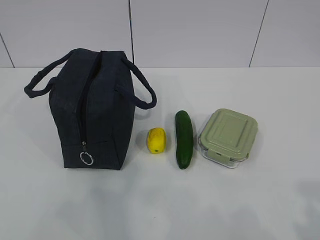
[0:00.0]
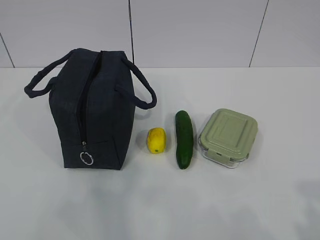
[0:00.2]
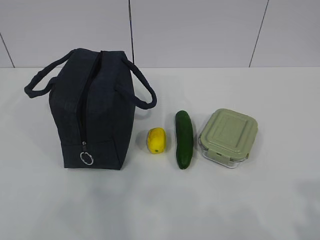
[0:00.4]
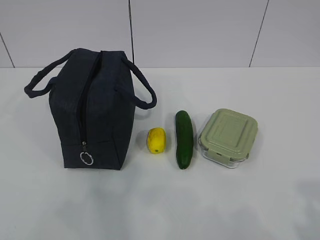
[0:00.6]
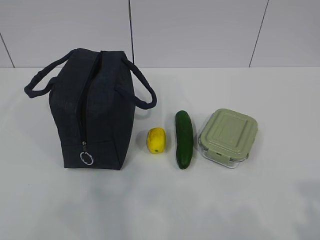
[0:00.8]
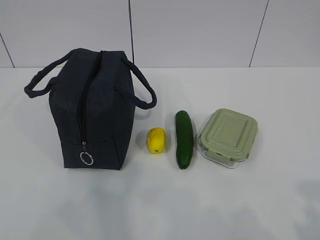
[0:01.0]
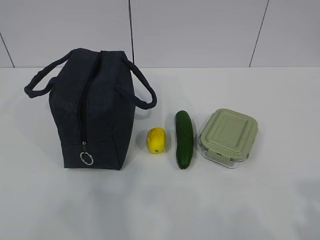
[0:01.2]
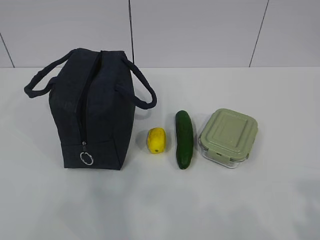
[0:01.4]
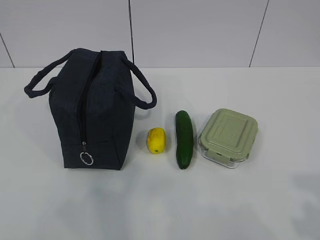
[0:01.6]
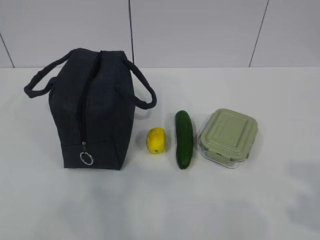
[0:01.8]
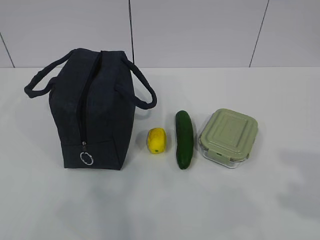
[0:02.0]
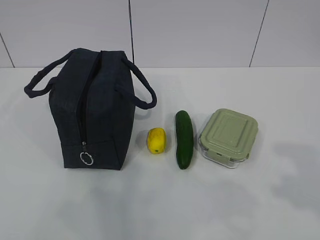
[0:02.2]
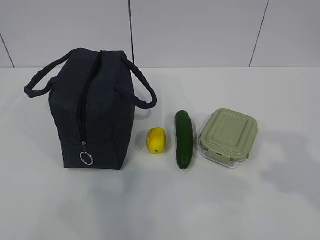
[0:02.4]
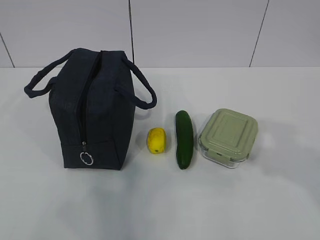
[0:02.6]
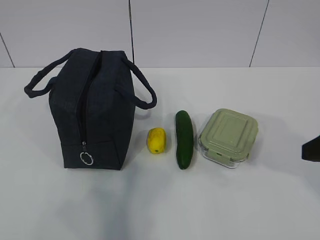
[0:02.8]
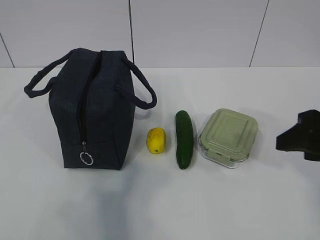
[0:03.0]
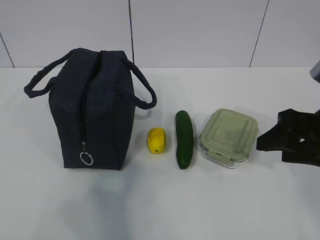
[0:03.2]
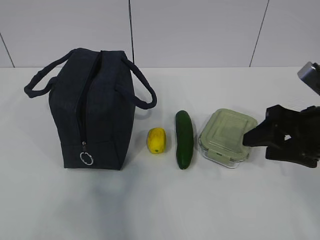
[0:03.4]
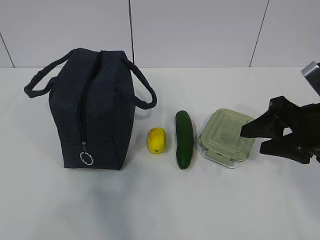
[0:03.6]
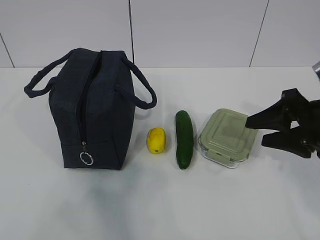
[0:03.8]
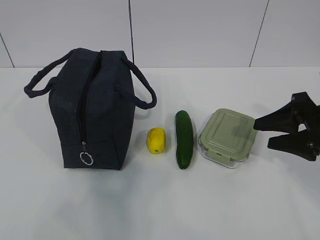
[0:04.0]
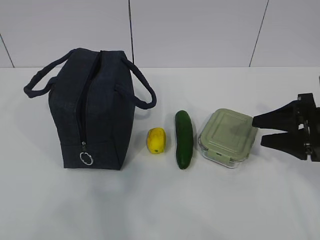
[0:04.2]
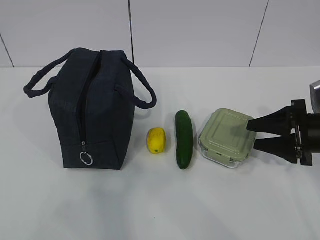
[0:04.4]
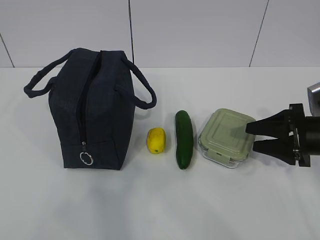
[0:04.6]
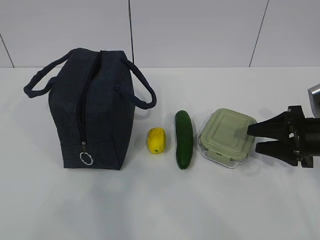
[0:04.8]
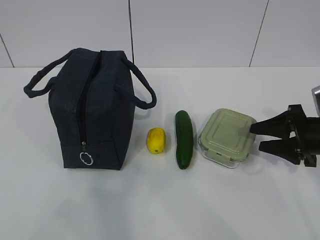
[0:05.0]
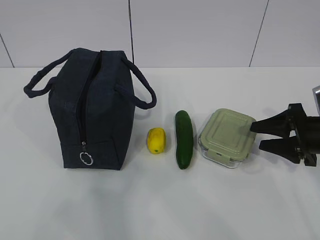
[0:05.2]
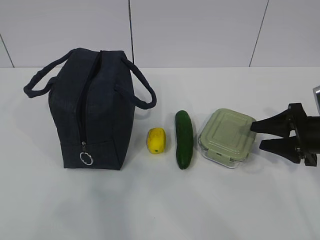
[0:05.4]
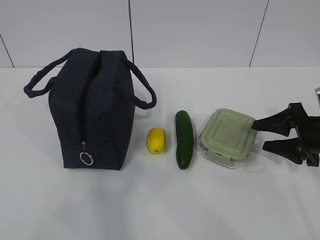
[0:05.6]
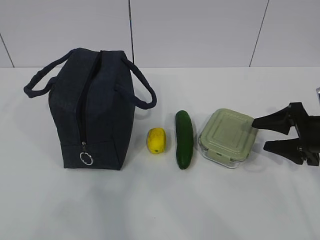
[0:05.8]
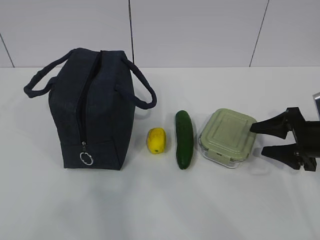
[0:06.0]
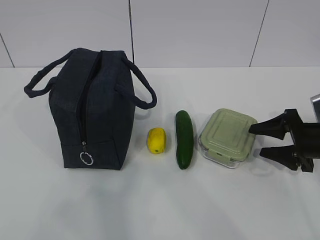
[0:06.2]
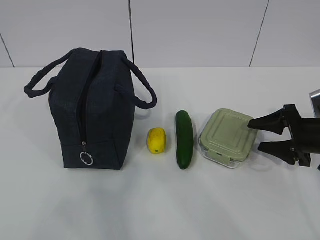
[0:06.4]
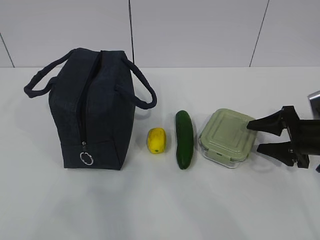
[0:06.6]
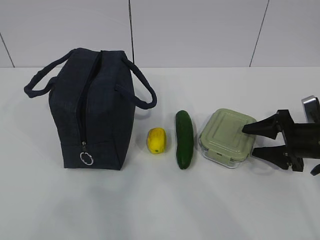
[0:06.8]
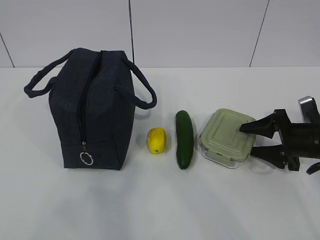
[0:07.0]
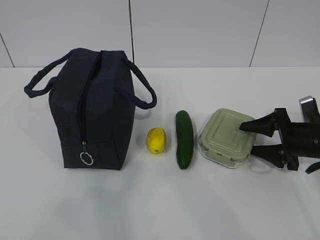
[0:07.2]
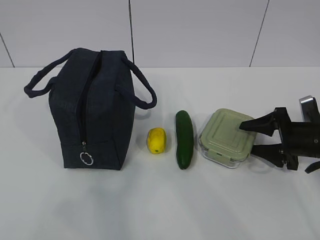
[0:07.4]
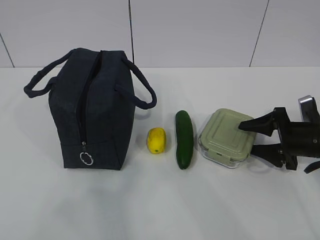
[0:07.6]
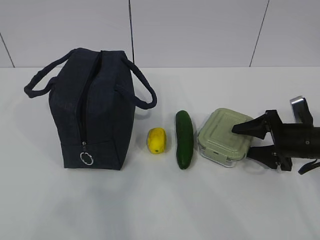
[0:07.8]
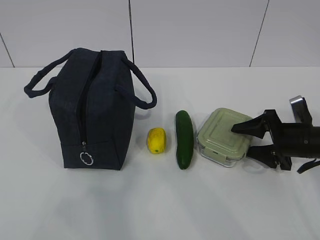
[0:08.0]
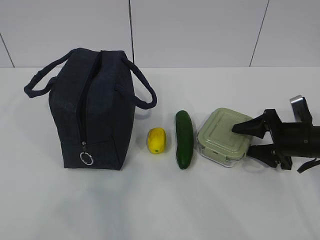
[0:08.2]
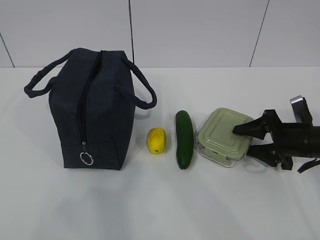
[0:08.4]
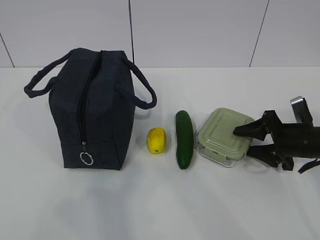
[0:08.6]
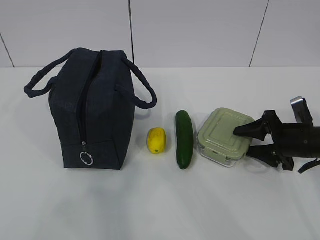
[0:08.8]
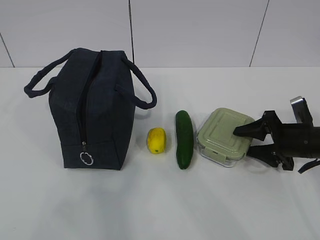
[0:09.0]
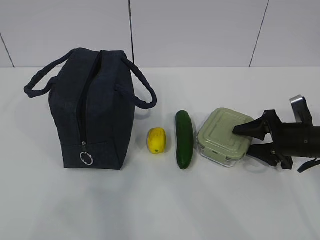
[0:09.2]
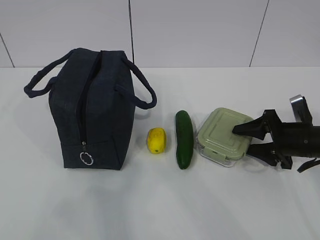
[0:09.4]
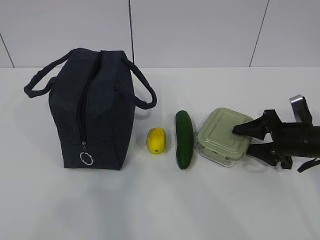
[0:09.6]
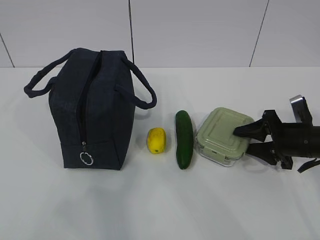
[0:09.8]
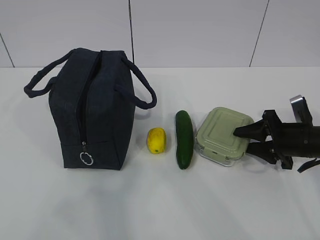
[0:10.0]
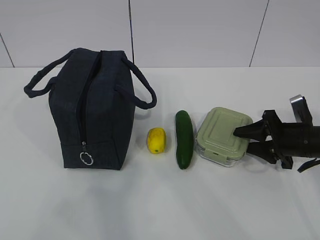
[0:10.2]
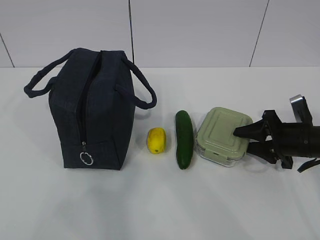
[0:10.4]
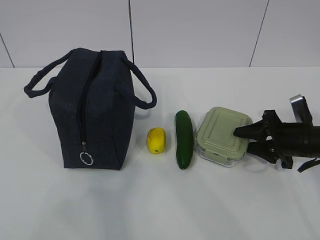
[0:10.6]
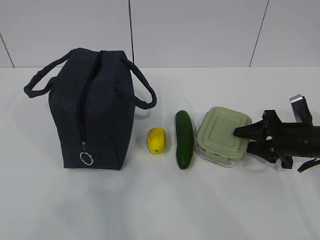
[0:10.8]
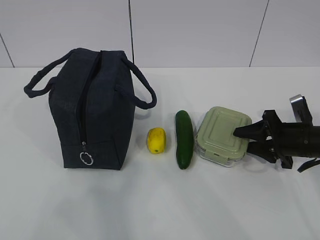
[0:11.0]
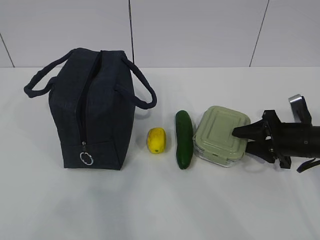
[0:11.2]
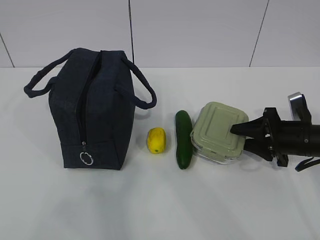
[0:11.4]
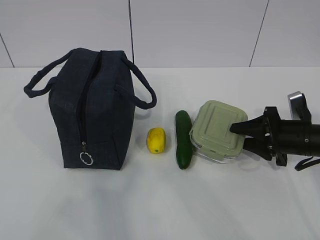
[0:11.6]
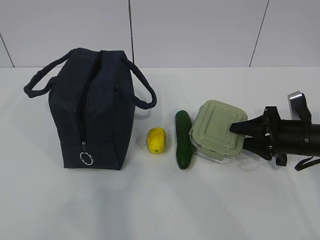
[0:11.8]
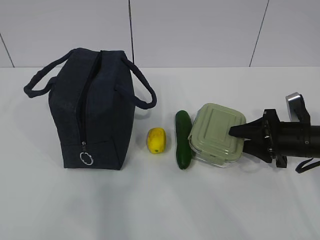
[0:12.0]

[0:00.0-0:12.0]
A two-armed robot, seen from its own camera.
Step, 0:00.0 to 0:09.0: Grab the lunch box with your right hand.
0:01.6 to 0:03.0: The right gripper goes some 20 cm forward.
0:03.0 to 0:04.4: The right gripper moves downward and forward, roughly 15 cm.
0:04.4 to 0:06.0: There are only small adjustments of the grippers.
0:06.0 to 0:07.6: The grippers move only a little.
0:07.6 to 0:10.4: Both grippers stay about where they are.
0:10.4 to 0:12.0: The grippers stay close to where they were, moving slightly.

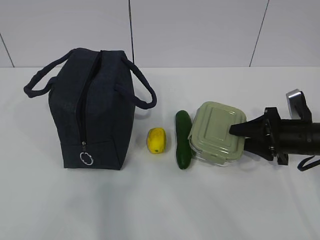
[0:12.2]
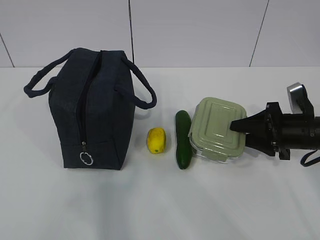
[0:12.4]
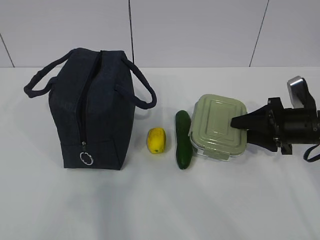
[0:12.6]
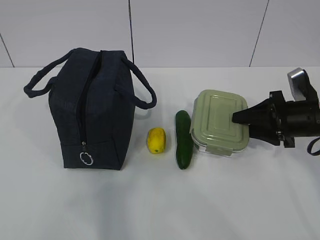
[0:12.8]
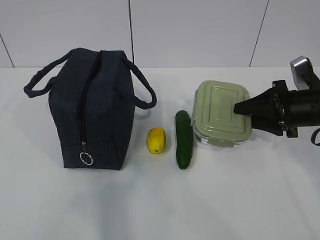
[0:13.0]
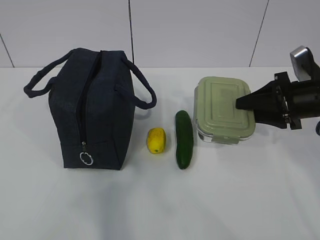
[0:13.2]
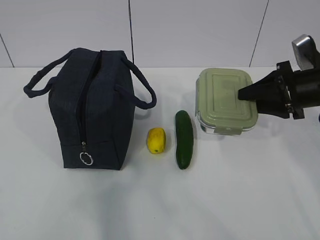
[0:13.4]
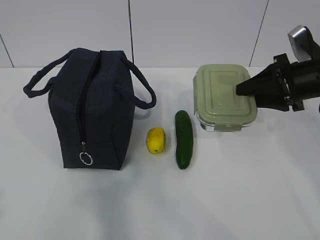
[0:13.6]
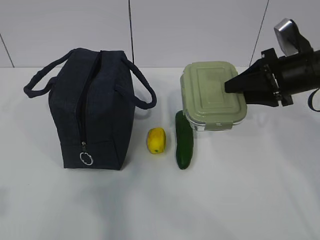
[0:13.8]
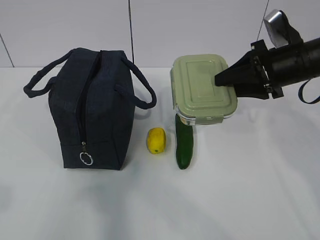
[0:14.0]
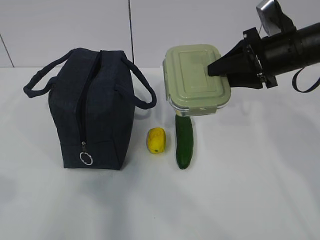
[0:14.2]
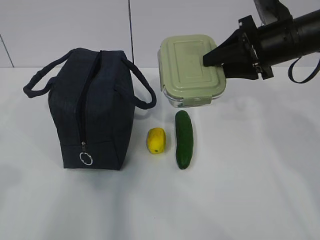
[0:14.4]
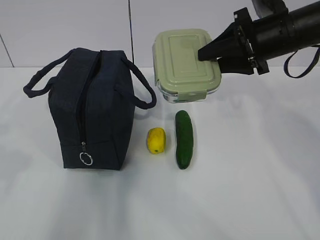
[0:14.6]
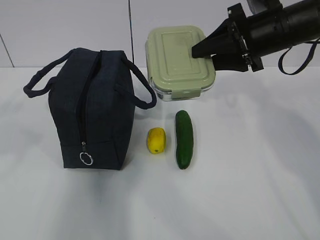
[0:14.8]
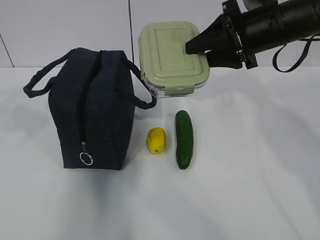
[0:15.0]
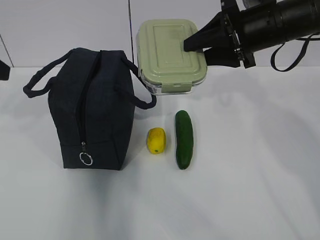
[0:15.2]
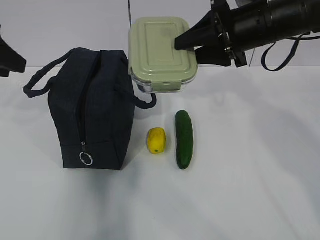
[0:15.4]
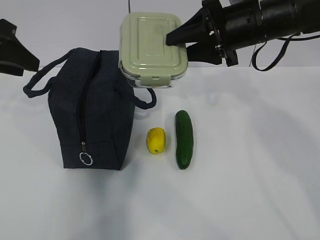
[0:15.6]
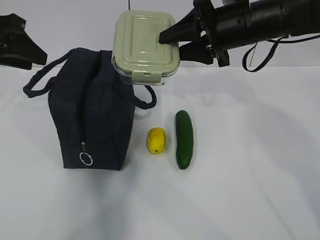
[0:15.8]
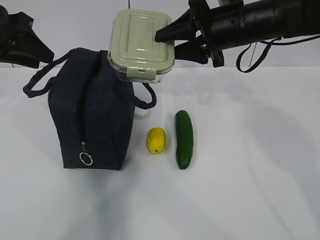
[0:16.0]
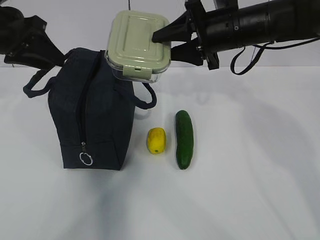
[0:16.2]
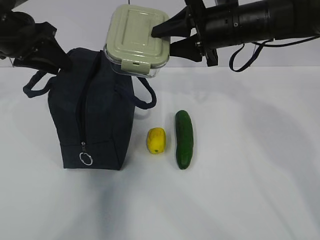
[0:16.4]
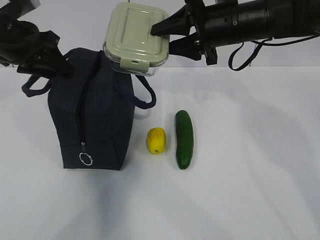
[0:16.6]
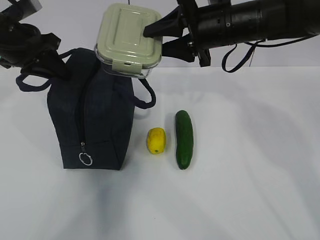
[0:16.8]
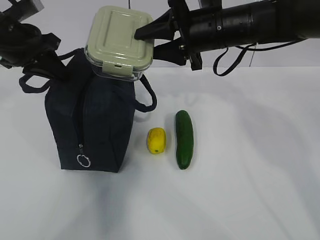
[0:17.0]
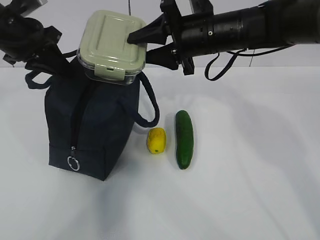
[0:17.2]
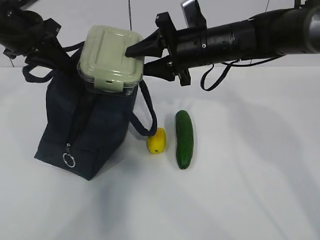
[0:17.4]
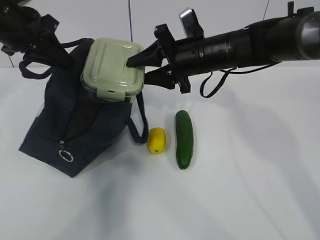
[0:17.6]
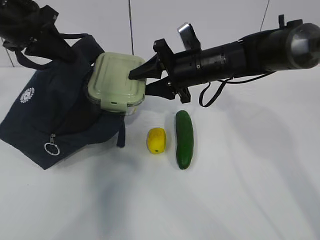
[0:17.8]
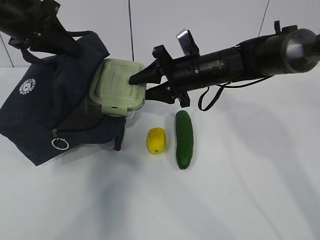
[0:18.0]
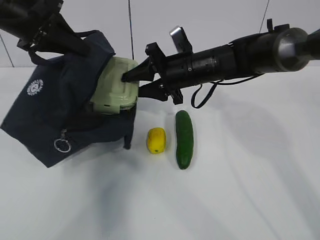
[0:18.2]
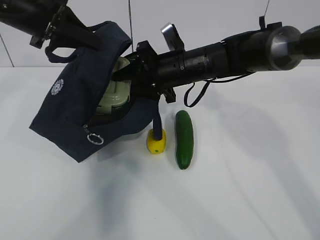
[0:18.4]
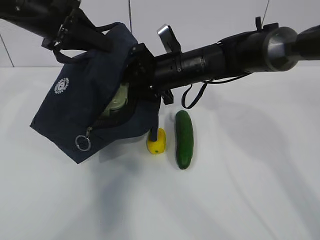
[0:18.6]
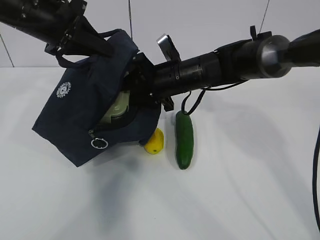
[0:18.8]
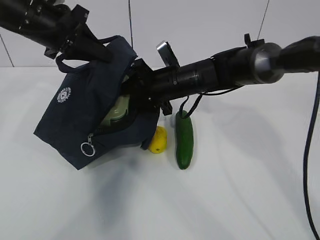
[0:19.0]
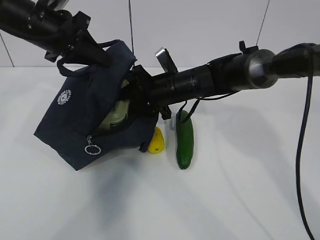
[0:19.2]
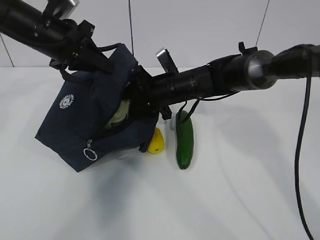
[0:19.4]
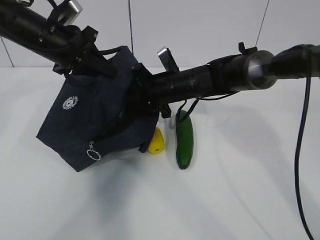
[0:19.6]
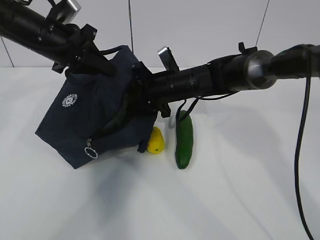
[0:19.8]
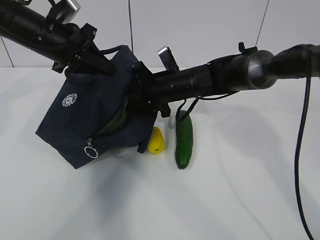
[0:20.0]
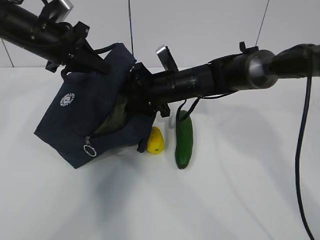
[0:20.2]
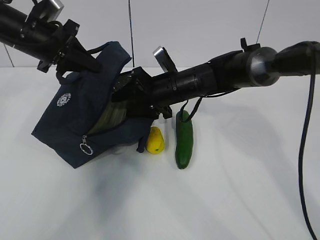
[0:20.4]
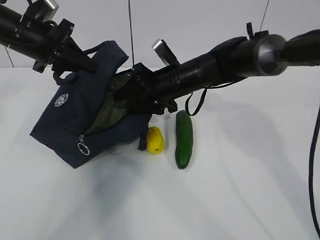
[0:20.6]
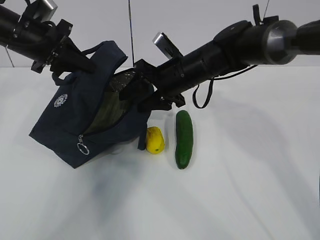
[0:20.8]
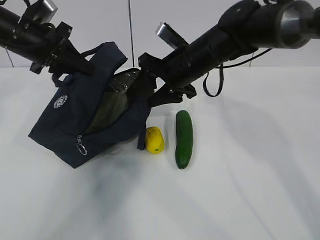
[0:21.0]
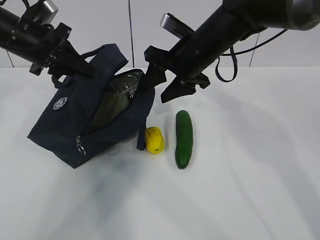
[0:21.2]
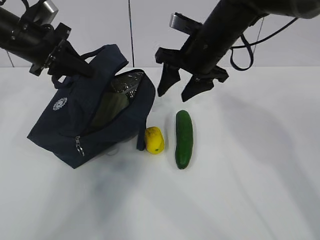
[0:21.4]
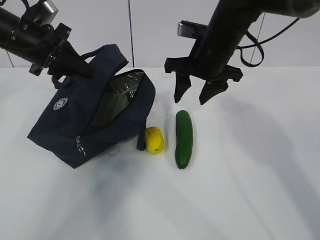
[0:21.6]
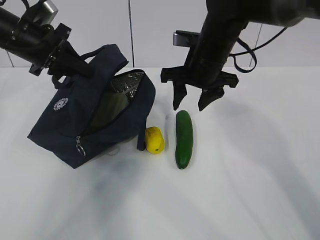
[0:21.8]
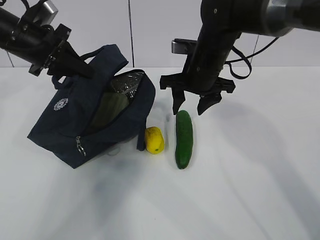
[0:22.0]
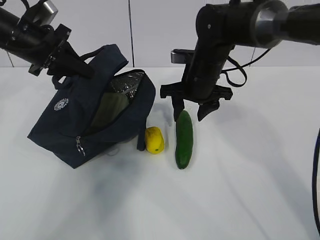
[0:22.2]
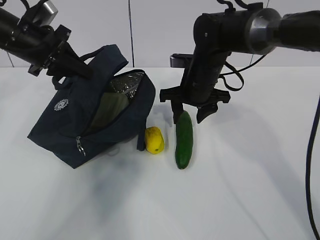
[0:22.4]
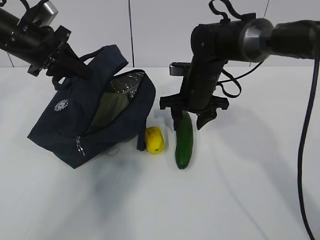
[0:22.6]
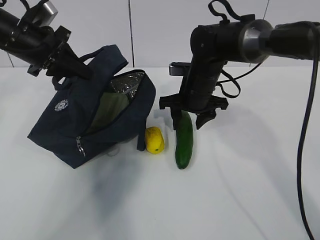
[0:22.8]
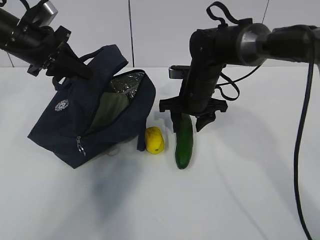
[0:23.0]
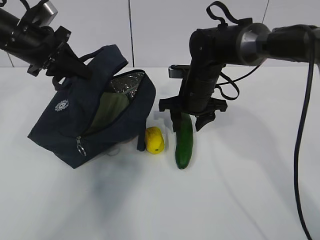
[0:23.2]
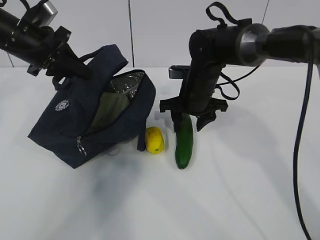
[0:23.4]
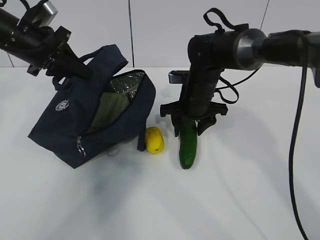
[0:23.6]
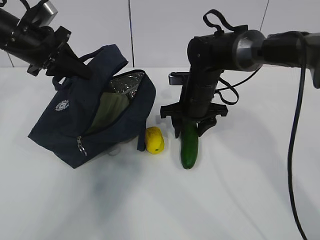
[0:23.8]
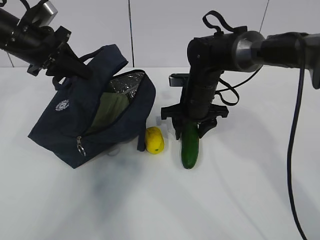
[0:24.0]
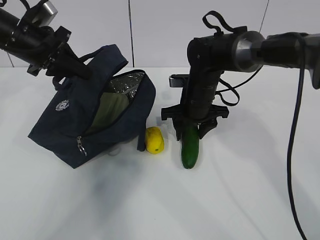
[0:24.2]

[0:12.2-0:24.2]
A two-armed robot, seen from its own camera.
Step, 0:12.2 to 0:14.6: Grab the lunch bag with your left hand.
Step, 0:14.8 to 0:16.4: Place it into the bag with your right hand.
Step, 0:16.8 to 0:20.4: Grab the cucumber with your right hand.
Step, 0:20.6 to 0:22.4: Place it into the bag with your right hand.
0:12.2 to 0:13.8: The right gripper goes about 10 cm upward.
0:13.8 to 0:15.2: The left gripper goes roughly 25 cm forward. Meanwhile the right gripper travels to the left and upward by some 10 cm.
0:15.2 to 0:16.6: The right gripper changes place by some 5 cm. Meanwhile the left gripper is displaced forward and downward by approximately 15 cm.
0:16.6 to 0:18.2: The right gripper moves downward and to the left, about 10 cm. The left gripper closes its fingers.
0:18.2 to 0:19.8: The left gripper is displaced downward by approximately 5 cm; the right gripper ends up roughly 5 cm from where it was.
0:19.8 to 0:21.2: The right gripper travels upward by roughly 10 cm.
0:21.2 to 0:22.6: The right gripper heads downward, covering approximately 10 cm.
0:22.6 to 0:24.2: The grippers make only small movements.
